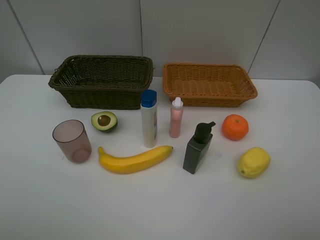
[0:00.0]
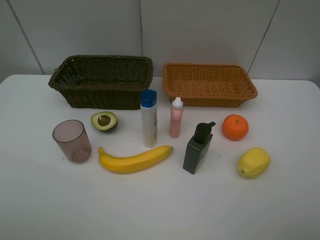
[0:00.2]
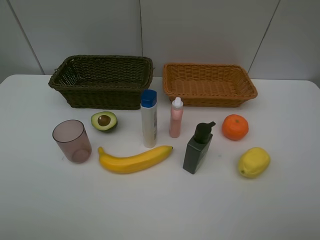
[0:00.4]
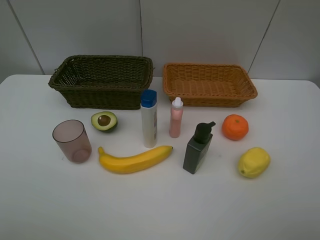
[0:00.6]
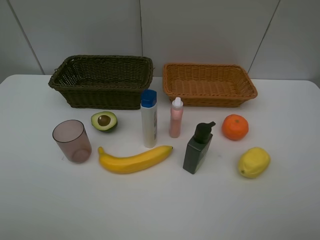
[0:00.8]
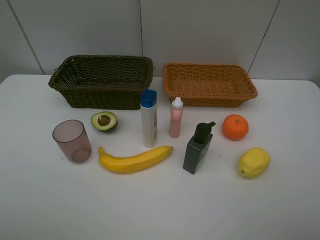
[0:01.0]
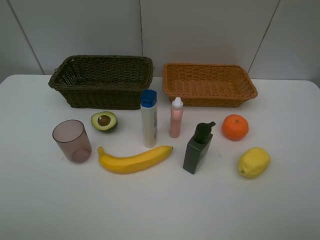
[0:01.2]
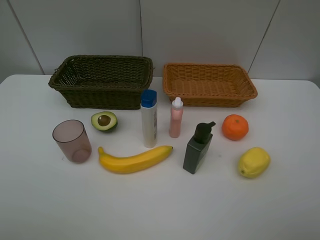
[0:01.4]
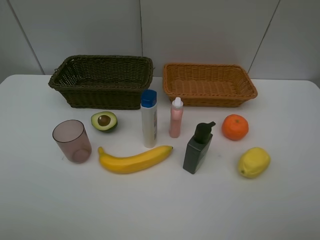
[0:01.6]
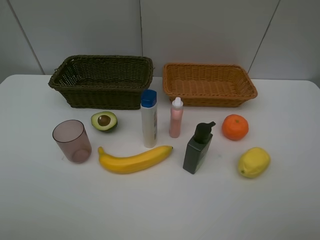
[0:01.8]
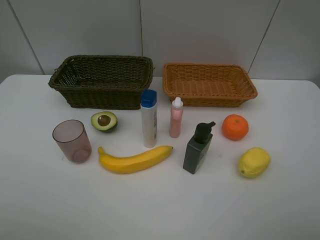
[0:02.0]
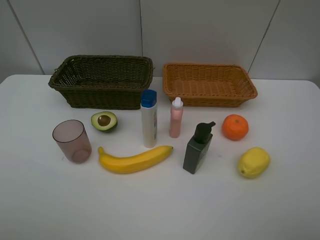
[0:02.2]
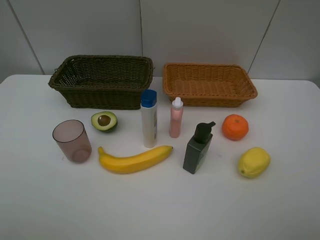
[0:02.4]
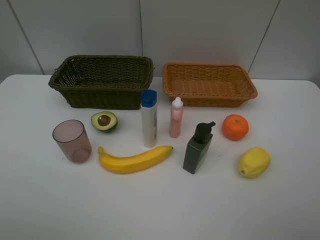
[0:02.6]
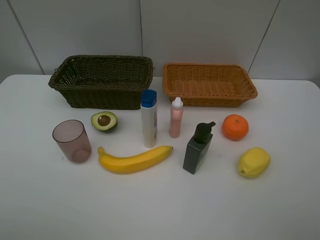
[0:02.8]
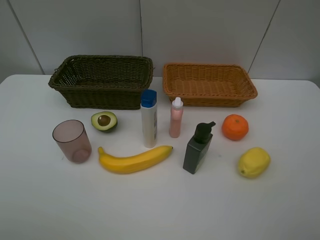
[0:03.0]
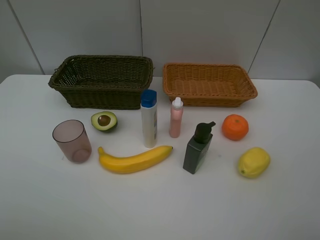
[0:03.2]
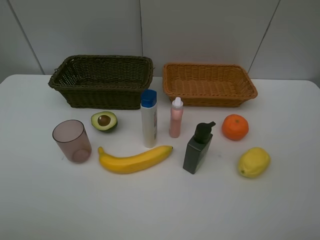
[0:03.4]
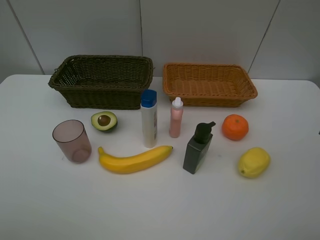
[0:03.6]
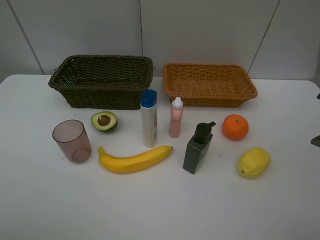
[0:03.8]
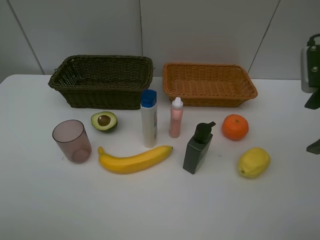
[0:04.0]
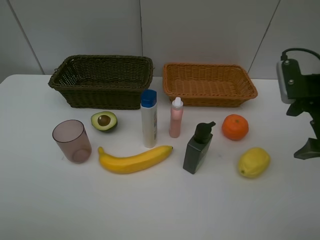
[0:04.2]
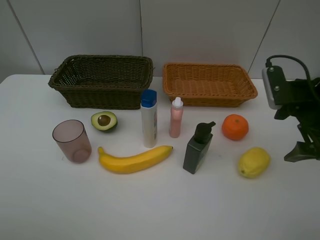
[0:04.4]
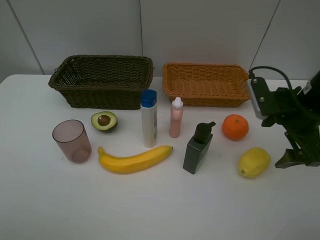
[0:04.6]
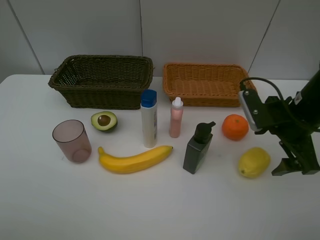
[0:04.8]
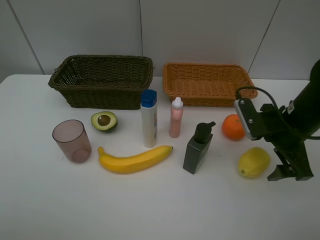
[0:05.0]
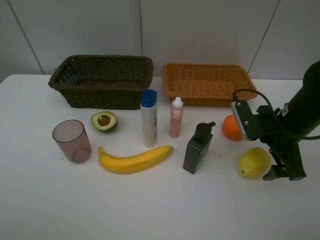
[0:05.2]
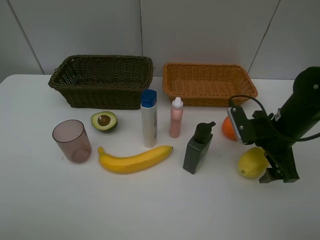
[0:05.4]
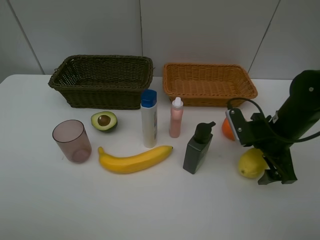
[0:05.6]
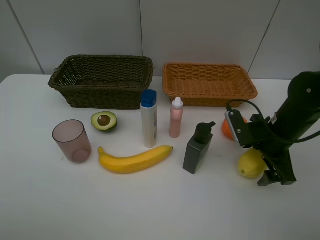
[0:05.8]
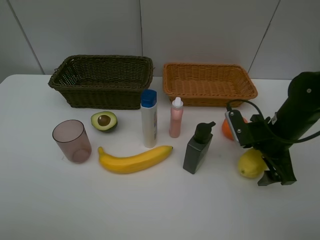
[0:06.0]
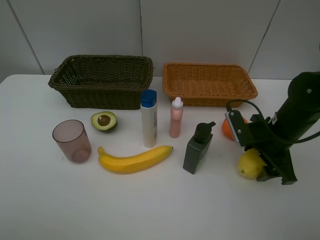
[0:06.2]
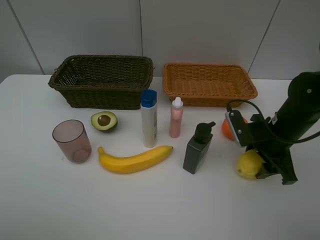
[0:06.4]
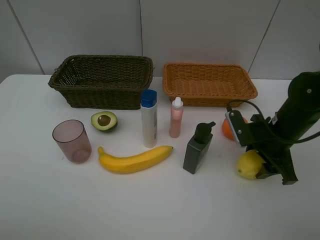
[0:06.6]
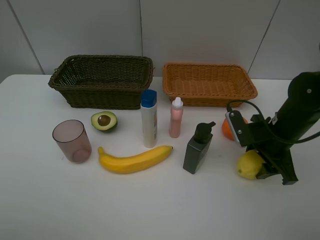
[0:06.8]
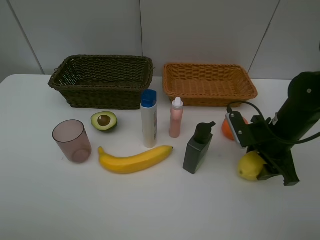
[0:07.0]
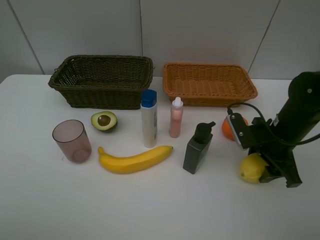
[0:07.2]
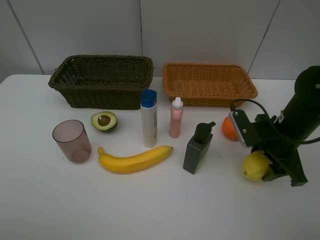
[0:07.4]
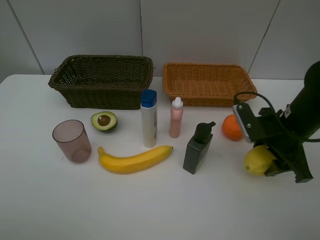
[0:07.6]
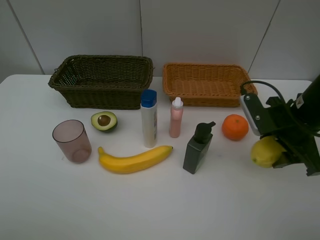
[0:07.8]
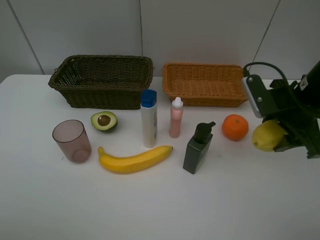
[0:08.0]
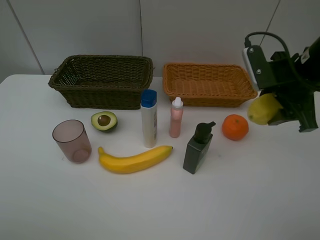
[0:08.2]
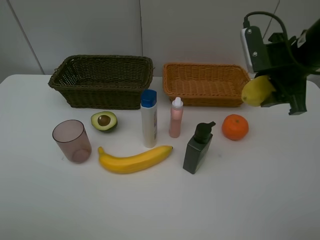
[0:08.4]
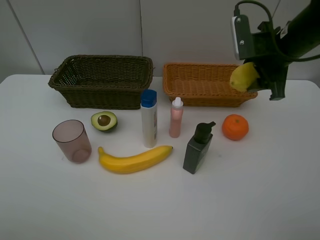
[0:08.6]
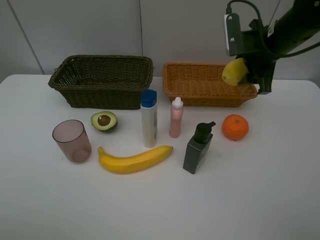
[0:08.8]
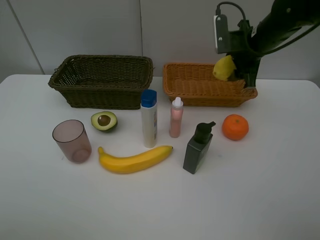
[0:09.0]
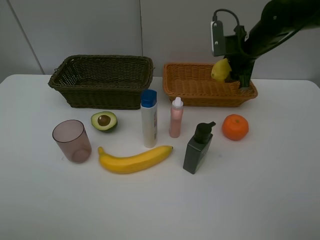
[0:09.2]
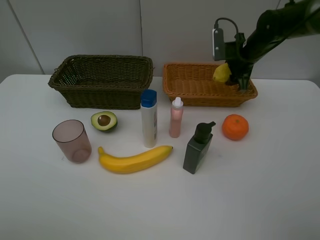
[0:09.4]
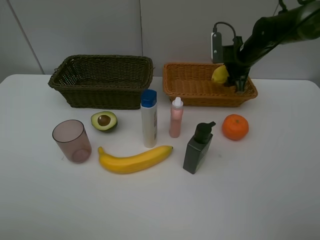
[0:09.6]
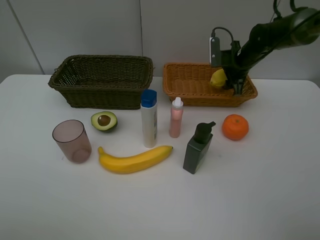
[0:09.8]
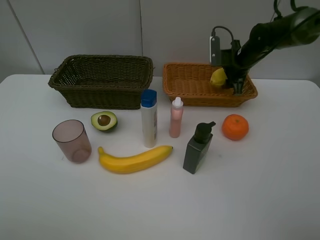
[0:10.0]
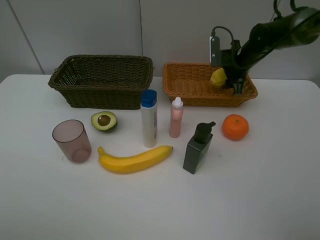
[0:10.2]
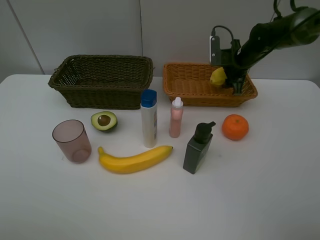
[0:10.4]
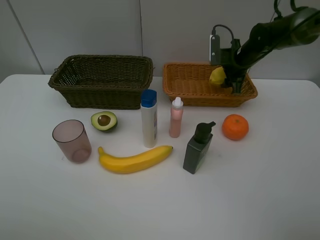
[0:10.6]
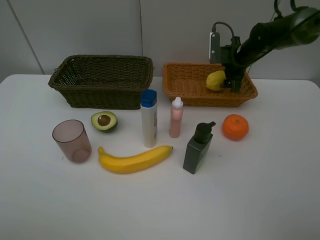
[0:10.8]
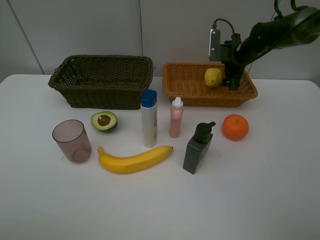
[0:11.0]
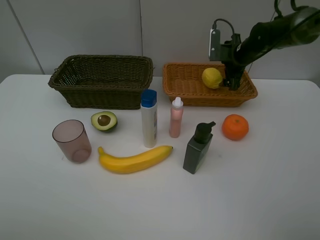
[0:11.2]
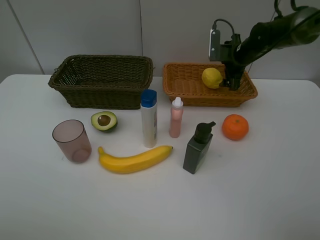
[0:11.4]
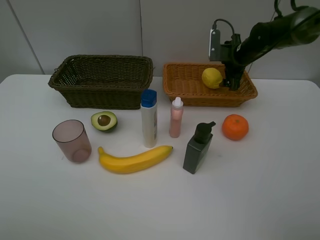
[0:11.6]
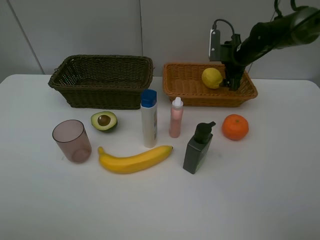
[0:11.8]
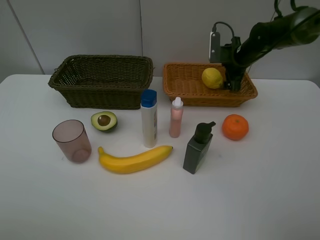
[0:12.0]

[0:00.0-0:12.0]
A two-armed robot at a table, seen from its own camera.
Task of the whole recording: Place multiple objects separately in different baskets.
Step, 0:00.0 to 0:07.4: Pick up the lemon with right gripper.
0:00.0 to 0:01.6: The two grippers keep their place.
0:03.0 to 0:04.4: The right gripper goes approximately 20 cm forward and downward.
0:04.4 to 0:06.0: The right gripper moves downward, some 10 cm.
0:06.0 to 0:07.6: The right gripper closes up.
0:07.6 to 0:09.0: The right gripper shifts roughly 15 cm forward.
0:09.0 to 0:10.4: The right gripper is displaced downward and forward by some 10 cm.
0:10.4 to 0:12.0: The right gripper opens its fingers.

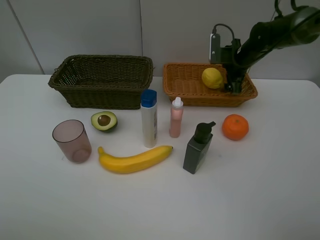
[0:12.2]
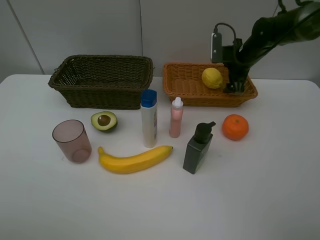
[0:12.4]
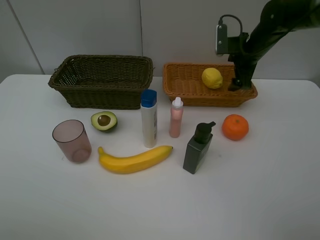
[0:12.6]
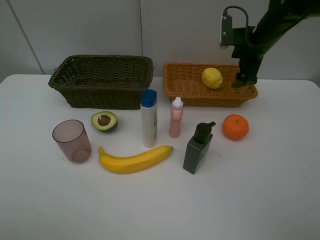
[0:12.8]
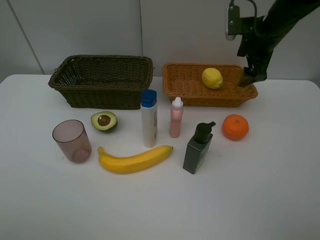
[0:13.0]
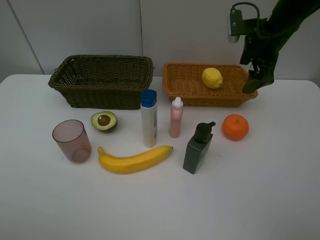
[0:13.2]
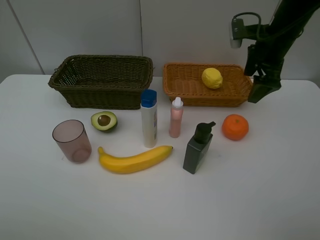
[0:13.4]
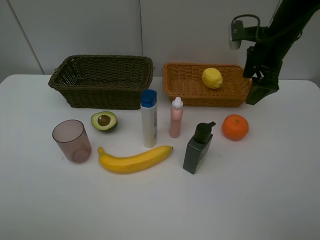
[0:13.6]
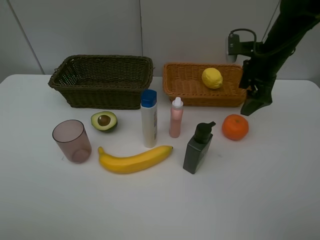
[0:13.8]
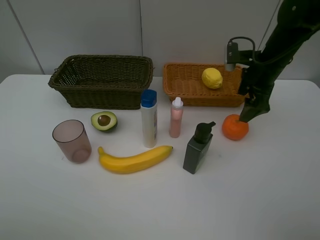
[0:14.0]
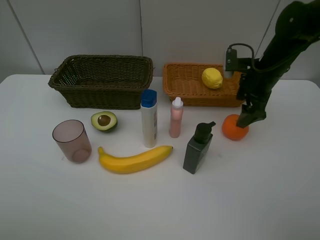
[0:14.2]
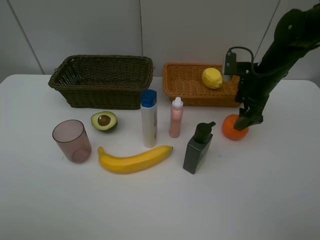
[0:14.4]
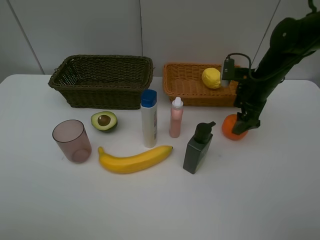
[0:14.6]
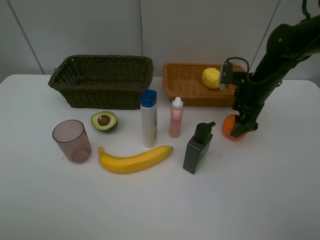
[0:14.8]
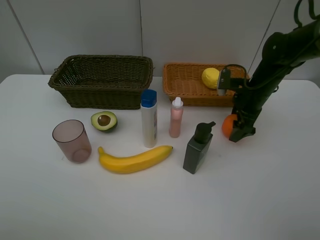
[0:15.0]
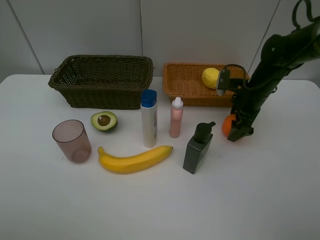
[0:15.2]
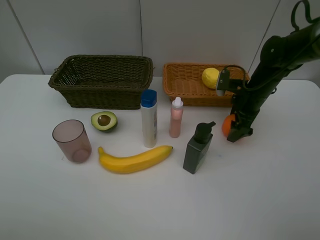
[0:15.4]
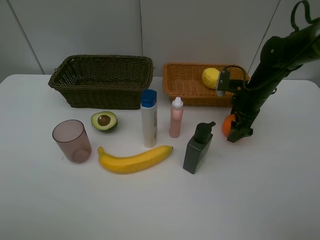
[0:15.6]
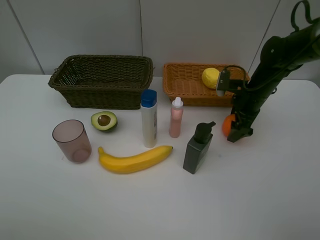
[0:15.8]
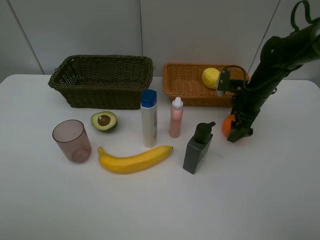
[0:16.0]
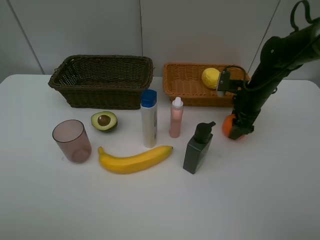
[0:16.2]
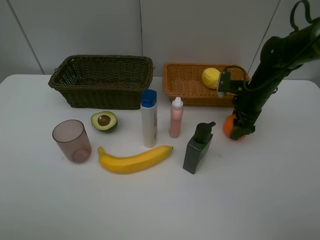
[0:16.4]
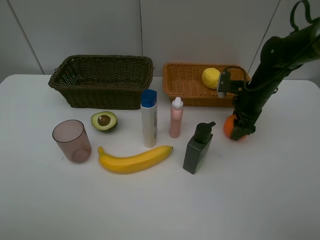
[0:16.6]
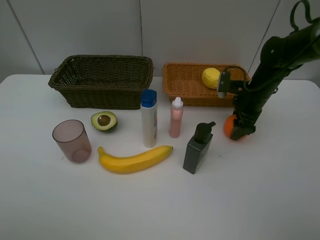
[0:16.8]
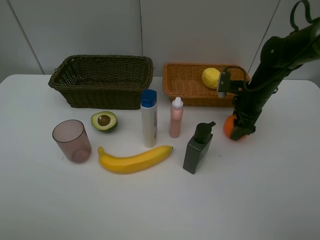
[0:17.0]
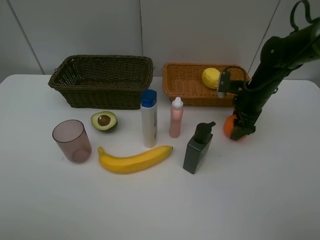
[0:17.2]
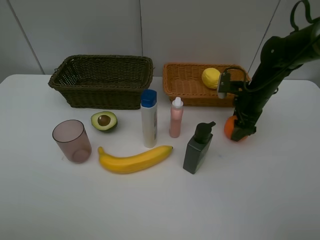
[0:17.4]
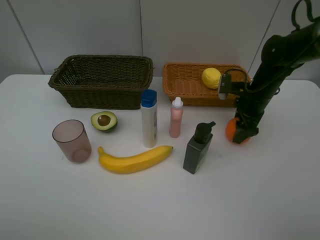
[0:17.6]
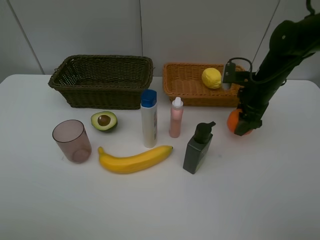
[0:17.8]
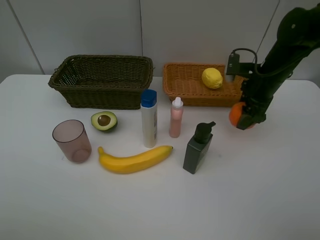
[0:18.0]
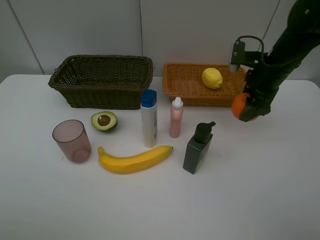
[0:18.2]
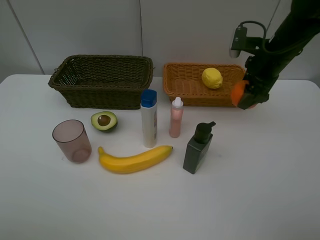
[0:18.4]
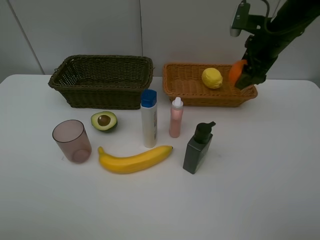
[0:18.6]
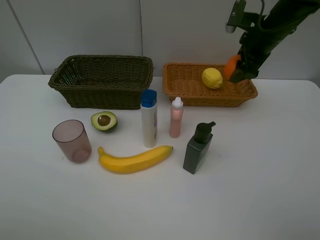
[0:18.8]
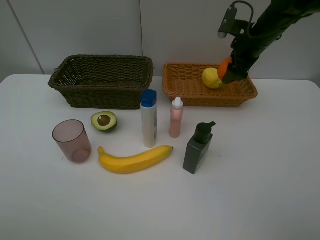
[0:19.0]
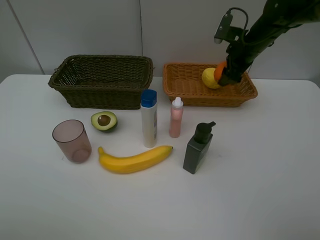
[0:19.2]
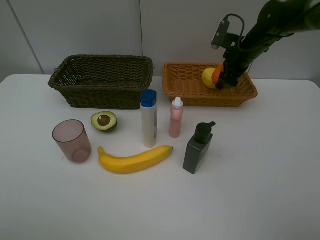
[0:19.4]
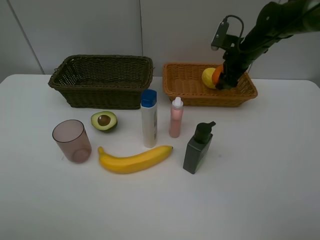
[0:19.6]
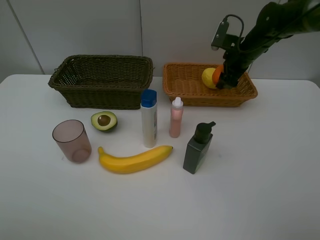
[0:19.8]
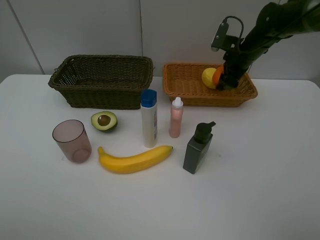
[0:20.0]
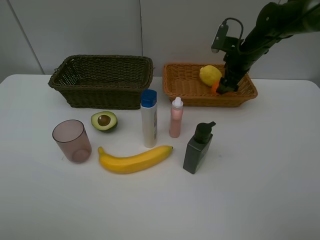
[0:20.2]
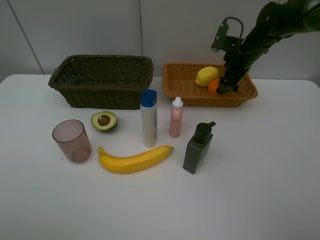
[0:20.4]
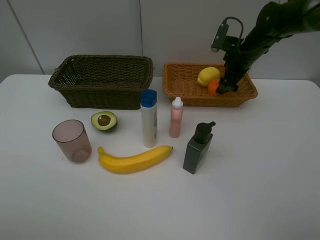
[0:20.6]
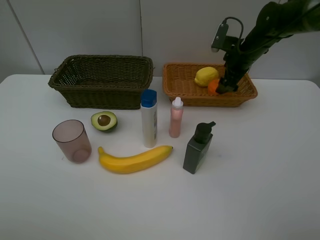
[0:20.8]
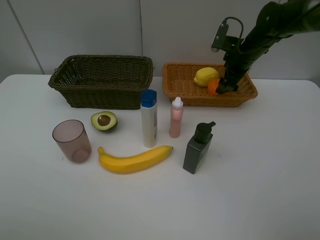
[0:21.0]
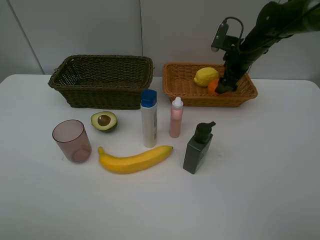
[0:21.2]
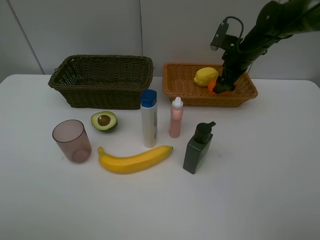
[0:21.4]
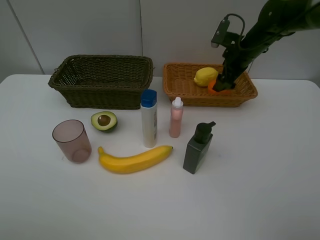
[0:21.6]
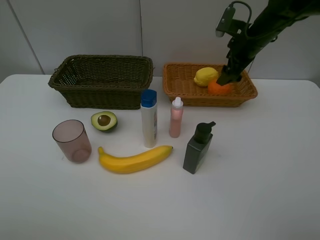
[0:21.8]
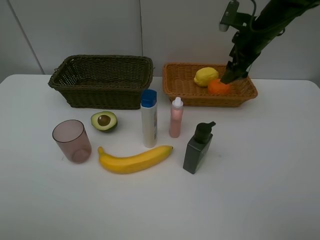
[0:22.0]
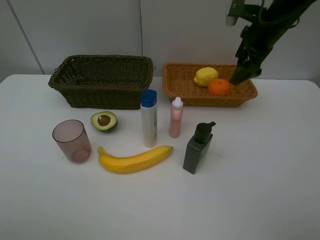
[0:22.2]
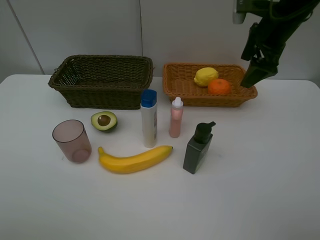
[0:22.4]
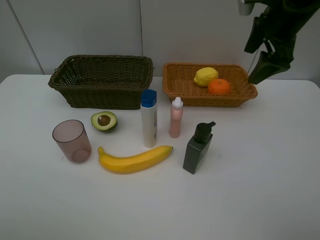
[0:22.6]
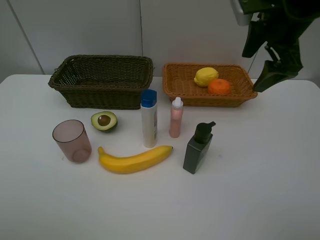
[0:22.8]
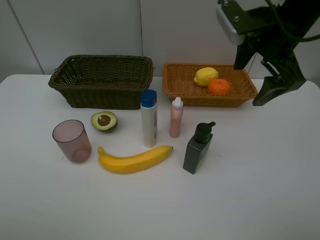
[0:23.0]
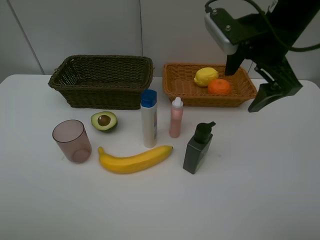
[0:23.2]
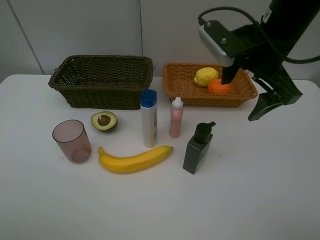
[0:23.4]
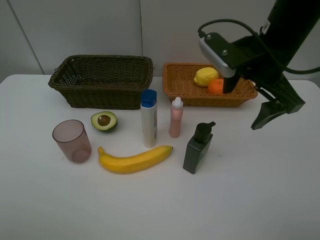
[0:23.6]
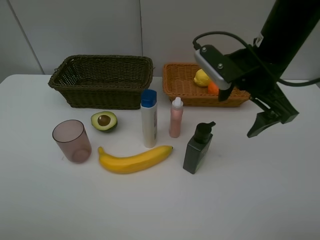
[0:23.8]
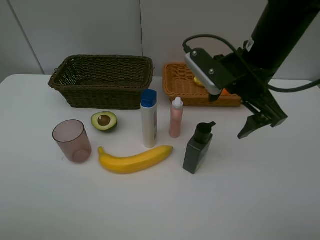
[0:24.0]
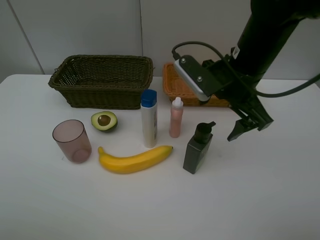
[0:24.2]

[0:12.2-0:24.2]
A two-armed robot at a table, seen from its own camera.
Task of the whole recording: Place multiple objects separately in different baskets.
Step, 0:12.4 to 0:17.8: Pick up the orange with right gripper.
Step, 0:18.0 to 0:21.8: Place the orange in the light basket with right gripper.
0:12.2 to 0:13.8: The right gripper shifts about 10 cm backward and upward.
0:13.8 to 0:15.2: The right gripper goes some 10 cm downward.
0:15.2 to 0:16.6: The right gripper closes up.
0:16.6 to 0:18.2: The right gripper travels upward by some 10 cm.
0:18.2 to 0:19.8: The right gripper shifts some 10 cm forward.
0:19.8 to 0:21.2: Neither gripper changes place.
0:21.2 to 0:22.6: The right gripper heads upward and backward, covering approximately 15 cm.
0:22.6 to 0:24.2: The right gripper goes some 15 cm to the left, downward and backward.
